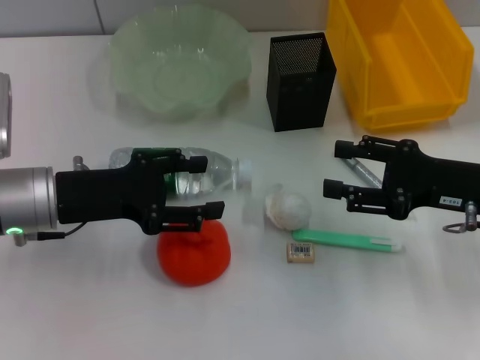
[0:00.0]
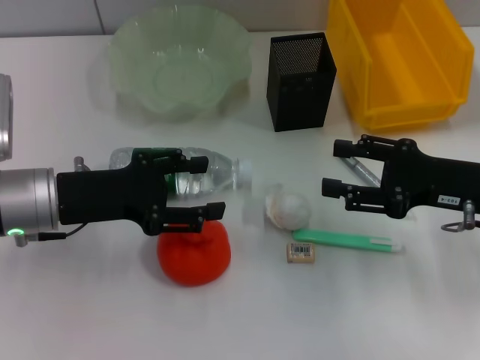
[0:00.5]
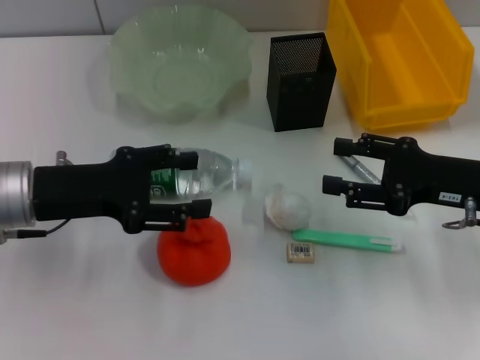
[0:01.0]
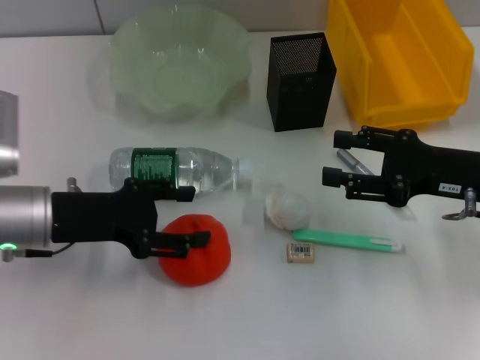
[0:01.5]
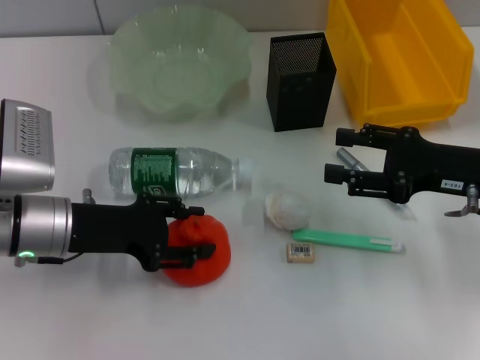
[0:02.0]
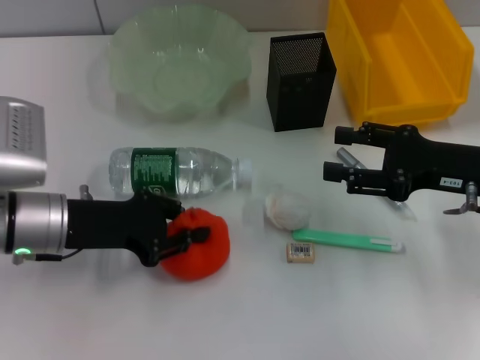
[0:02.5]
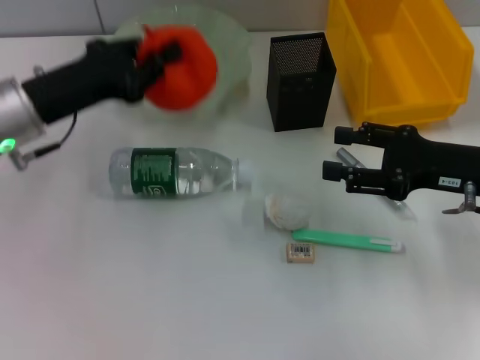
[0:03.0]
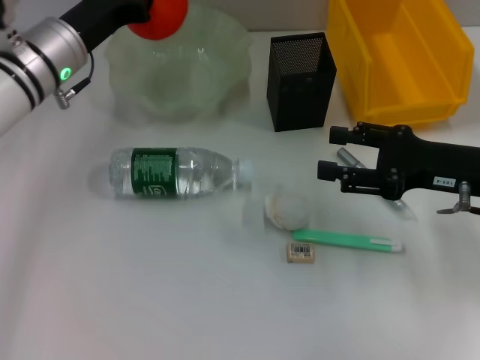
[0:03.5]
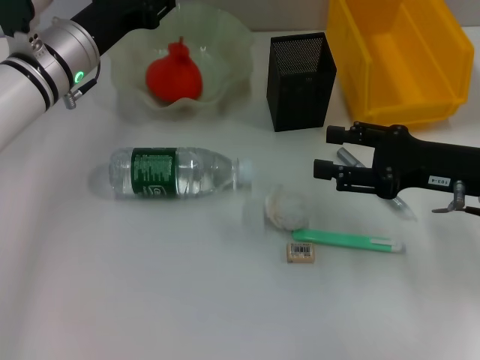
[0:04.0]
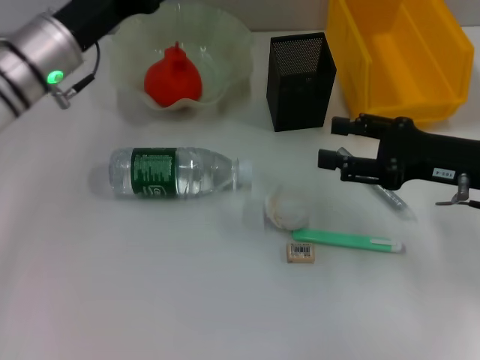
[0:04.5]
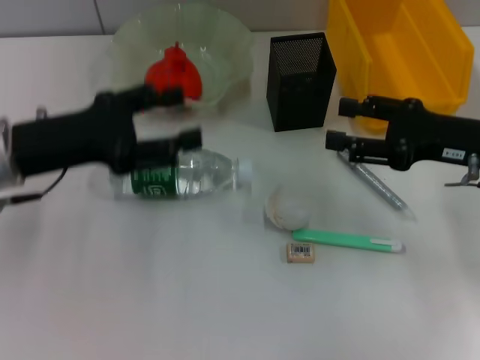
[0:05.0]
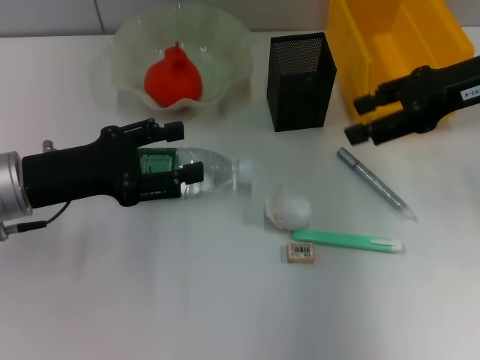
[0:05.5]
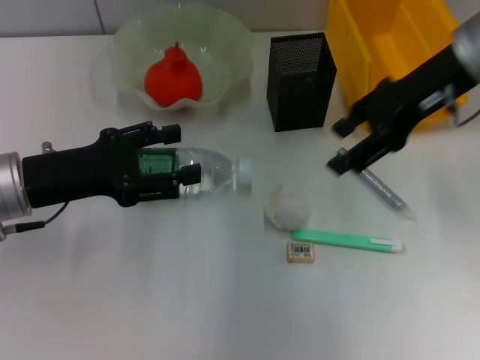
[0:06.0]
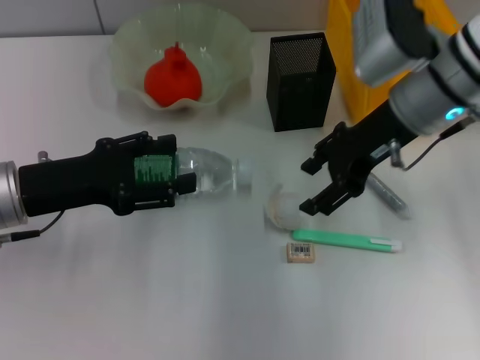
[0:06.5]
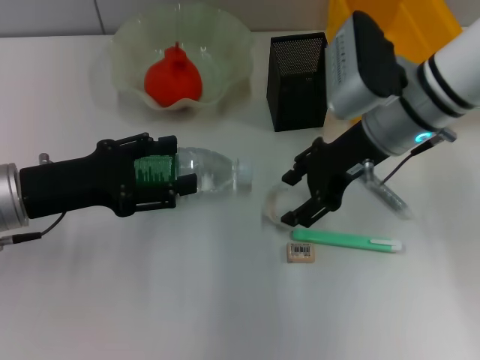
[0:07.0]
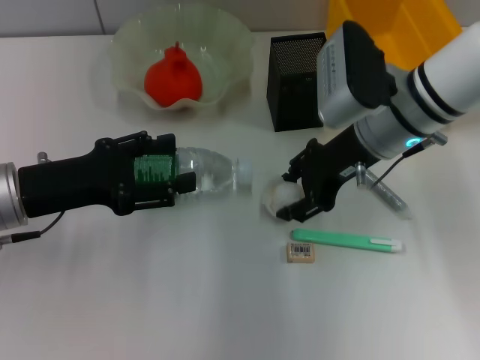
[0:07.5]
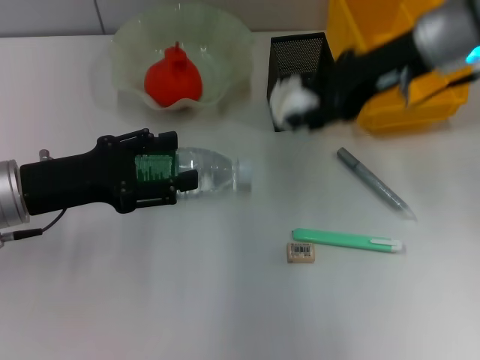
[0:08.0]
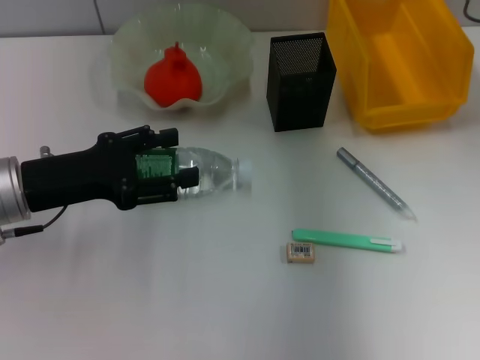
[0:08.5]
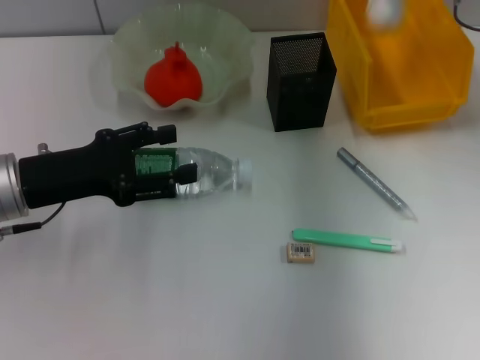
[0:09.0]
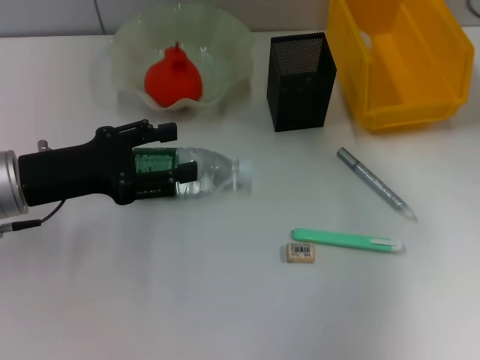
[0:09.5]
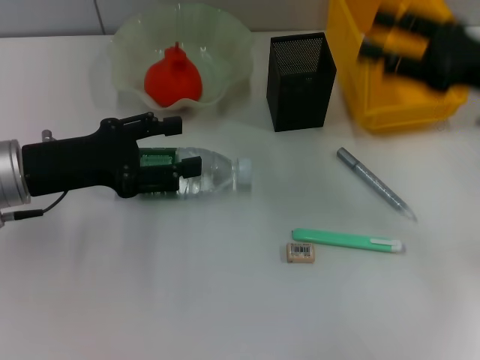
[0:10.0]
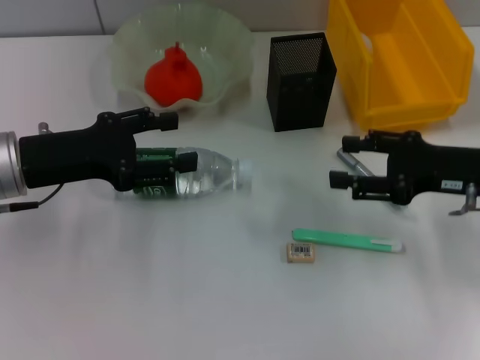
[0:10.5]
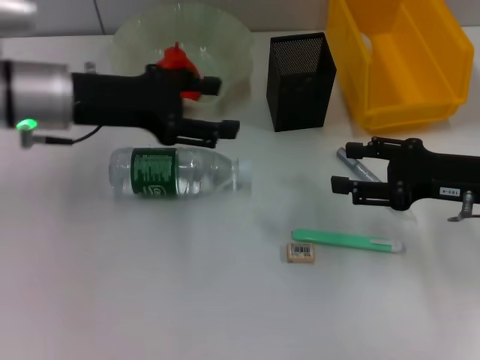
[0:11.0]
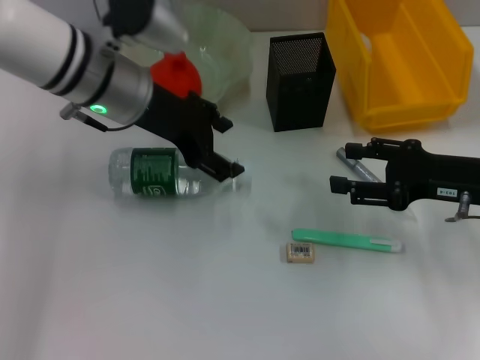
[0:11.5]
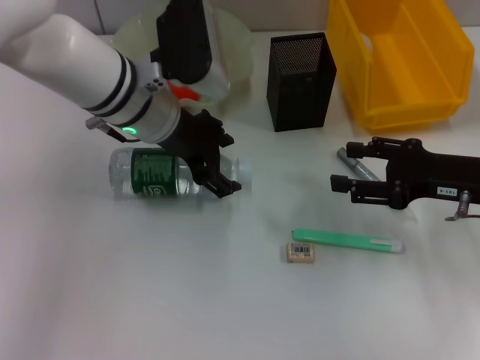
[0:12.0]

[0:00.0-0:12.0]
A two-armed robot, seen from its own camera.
Step, 0:00.0 to 0:02.0: Grab the orange with the left hand.
Step, 0:02.5 to 0:04.0: Place the orange into the fruit bowl with the left hand.
Step, 0:04.5 to 0:07.0: Grab the paper ball with the right hand.
Step, 0:07.5 to 0:10.0: Place the paper ball into the trash can with the right hand.
0:00.0 to 0:02.0: There are only small adjustments of the grippers.
0:02.0 to 0:04.0: The left gripper heads forward, covering some 15 cm, and closes up.
0:04.0 to 0:06.0: The right gripper travels upward, forward and to the left by approximately 15 cm; the left gripper travels backward and to the left by approximately 15 cm, and opens.
0:06.0 to 0:08.0: The right gripper moves approximately 10 cm downward and comes back, and closes its fingers.
0:08.0 to 0:10.0: The right gripper is displaced to the right, backward and downward by some 15 cm, and opens up.
0:10.0 to 0:12.0: The left gripper heads to the right and forward, covering approximately 15 cm, while the right gripper travels downward by roughly 5 cm.

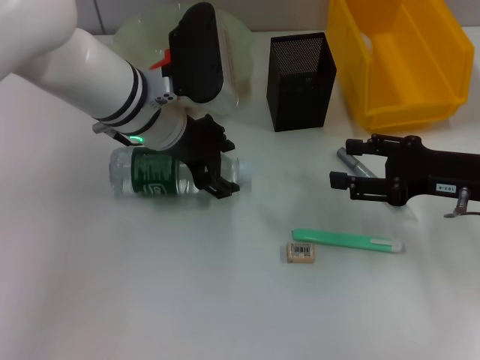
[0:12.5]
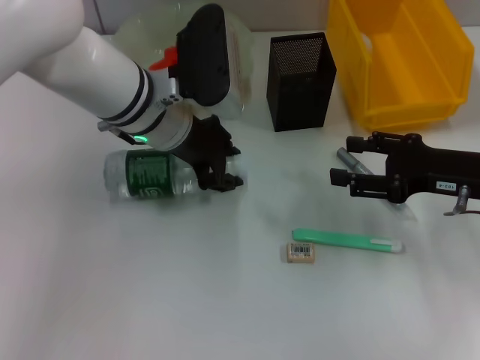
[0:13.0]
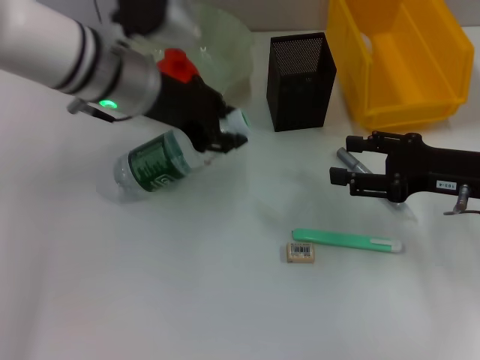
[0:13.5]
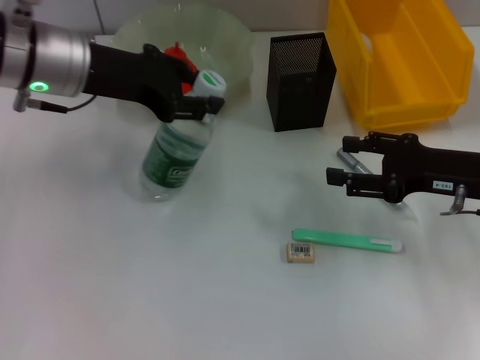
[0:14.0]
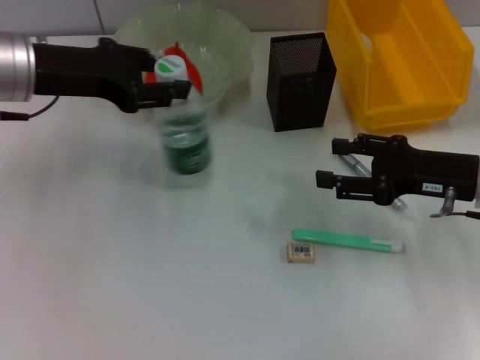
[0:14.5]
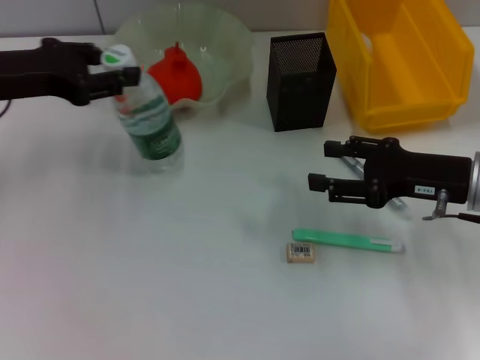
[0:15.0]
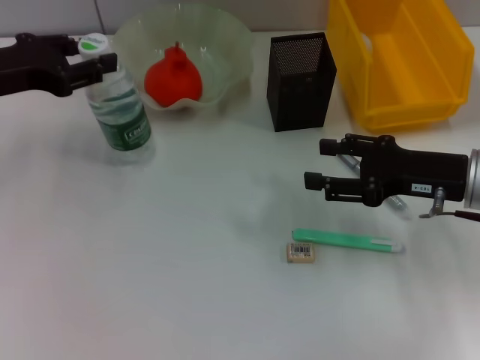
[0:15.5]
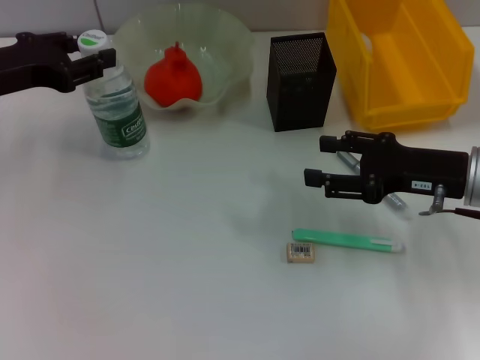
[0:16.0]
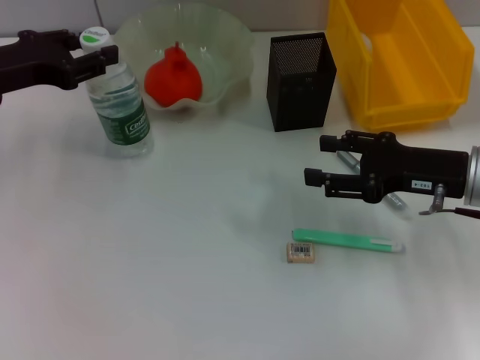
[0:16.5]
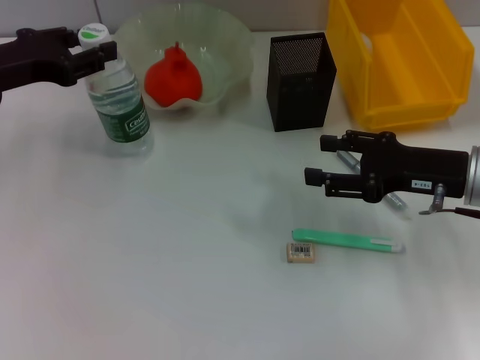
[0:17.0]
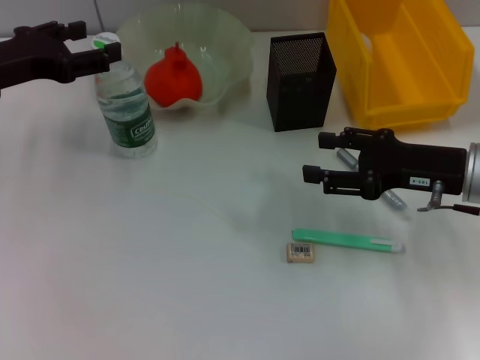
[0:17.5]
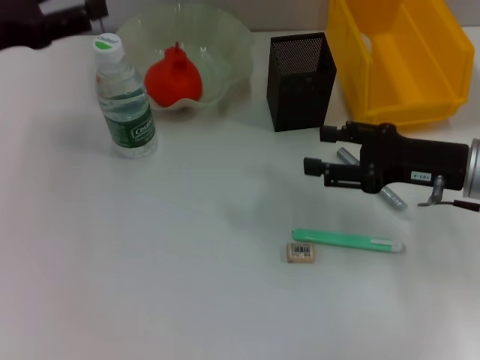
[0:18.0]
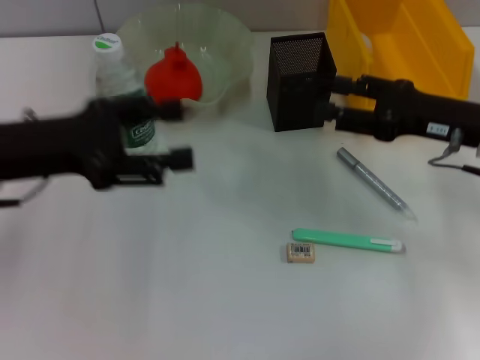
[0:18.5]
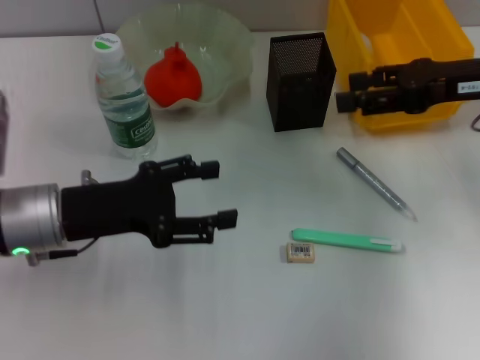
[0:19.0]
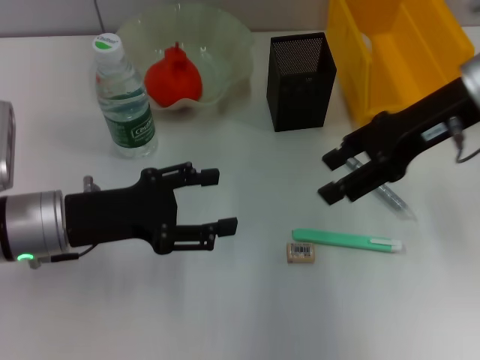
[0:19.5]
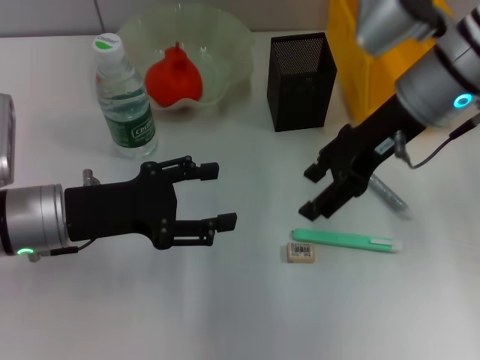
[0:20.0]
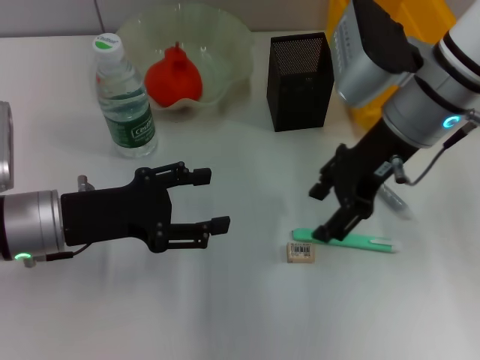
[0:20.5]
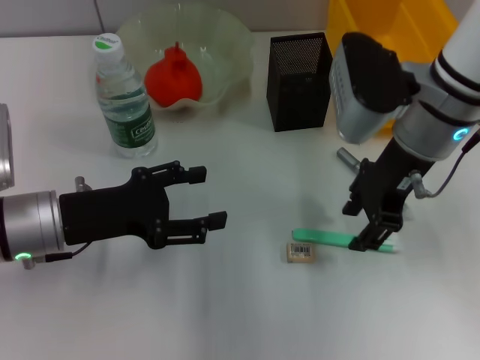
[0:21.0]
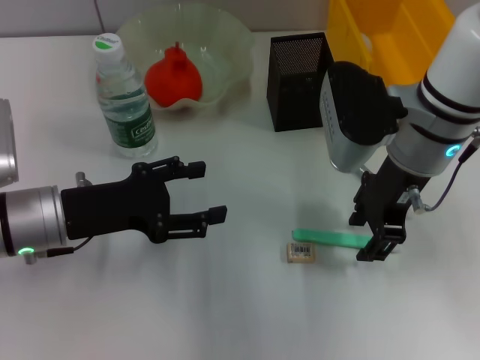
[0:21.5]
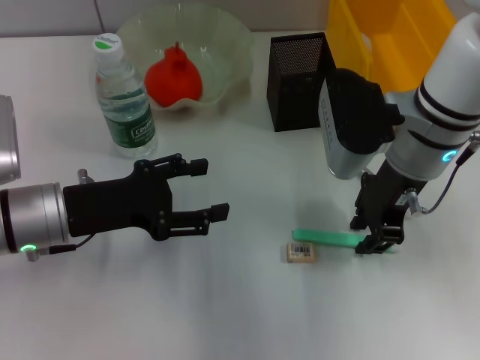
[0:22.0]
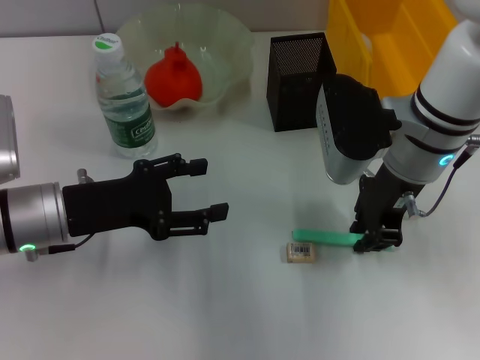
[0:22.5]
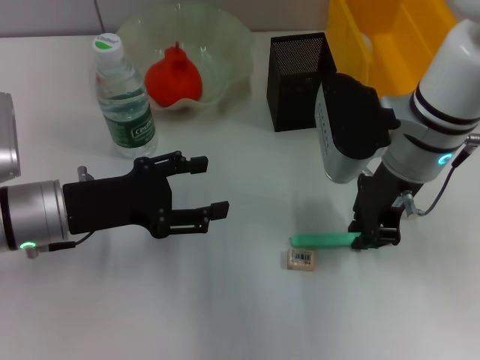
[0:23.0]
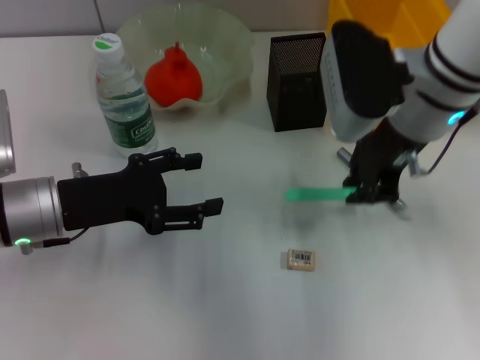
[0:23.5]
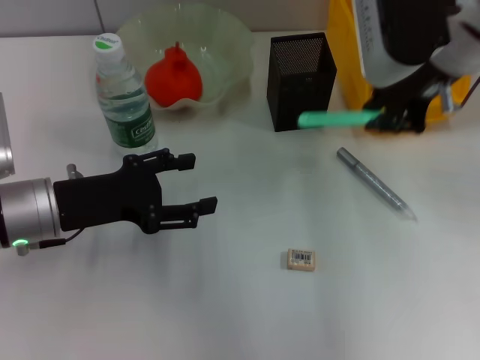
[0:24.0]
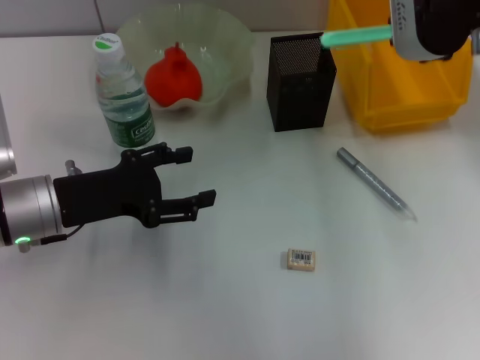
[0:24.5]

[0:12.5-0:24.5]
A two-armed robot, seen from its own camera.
Step, 0:13.0 to 0:17.5: Place the water bottle on the table with the left hand.
Step, 0:18.0 to 0:22.5: Grab the blue utility knife with the right hand.
0:12.5 to 0:14.5: The left gripper moves to the left and upward, approximately 15 cm, and closes its fingers.
0:14.5 to 0:16.5: The left gripper shifts approximately 5 cm to the left.
0:16.5 to 0:18.5: The left gripper moves backward, some 5 cm, and opens its fingers.
0:18.5 to 0:20.5: The right gripper shifts roughly 10 cm to the left and upward. Meanwhile the left gripper travels downward by approximately 5 cm.
0:20.5 to 0:22.5: The right gripper closes up.
0:22.5 to 0:24.5: The right gripper is displaced upward by approximately 15 cm.

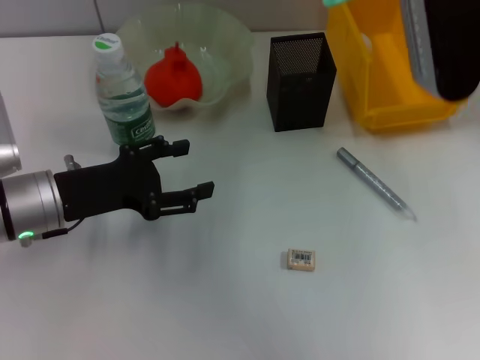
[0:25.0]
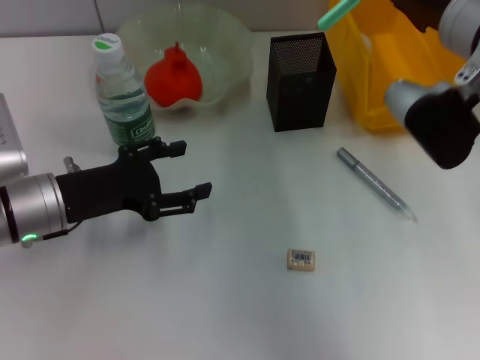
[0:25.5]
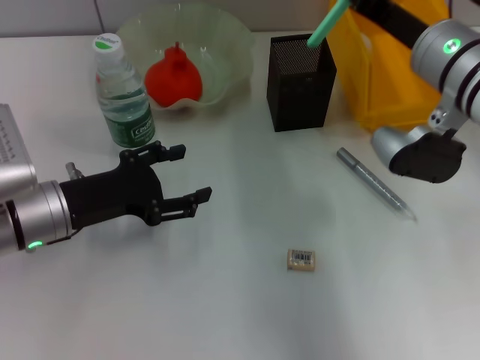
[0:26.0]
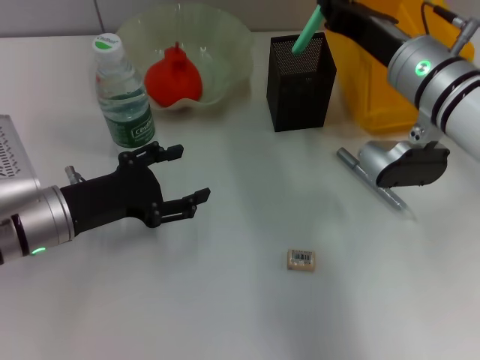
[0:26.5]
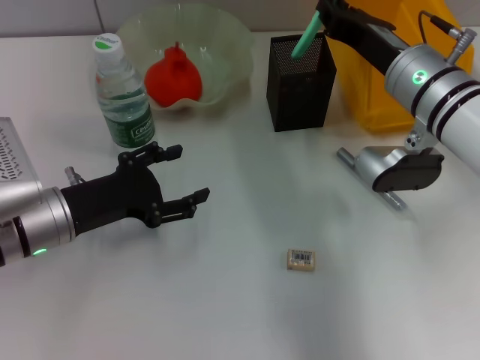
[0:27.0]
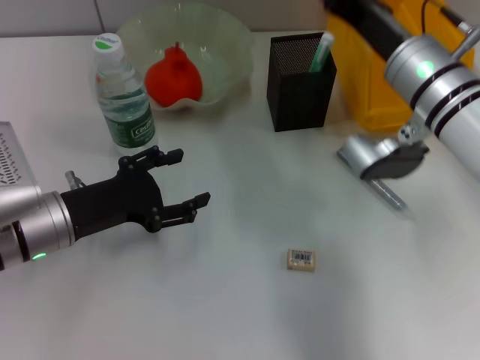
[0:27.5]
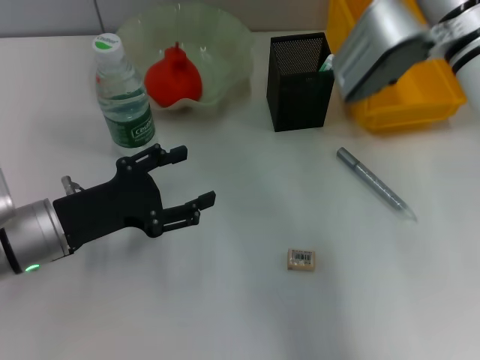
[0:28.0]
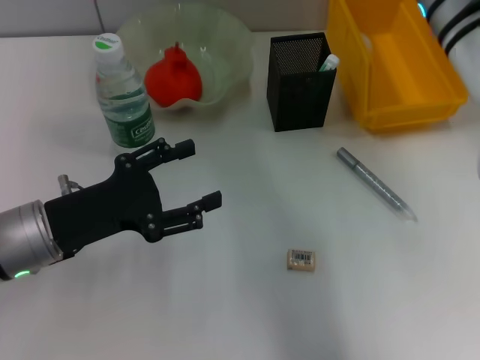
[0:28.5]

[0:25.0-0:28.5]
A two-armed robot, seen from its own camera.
Step, 0:25.0 to 0:27.5: Place the blue utility knife into the pen holder with the right hand.
0:25.0 to 0:27.0: The right gripper heads downward, covering some 15 cm.
0:27.0 to 0:28.5: The right gripper moves upward, about 5 cm, and opens its fingers.
